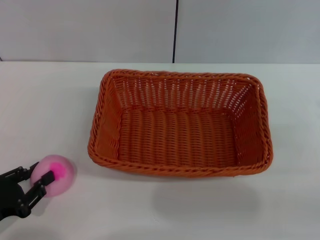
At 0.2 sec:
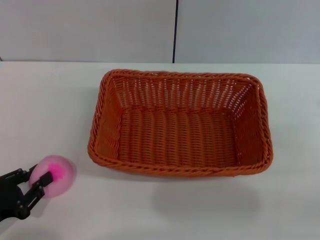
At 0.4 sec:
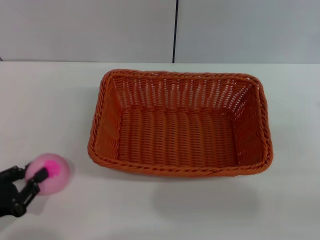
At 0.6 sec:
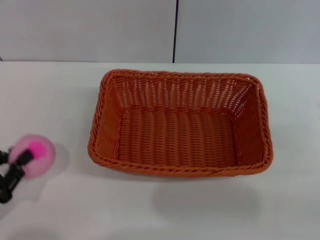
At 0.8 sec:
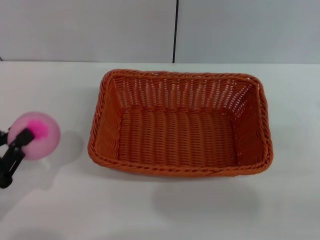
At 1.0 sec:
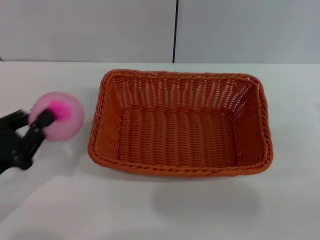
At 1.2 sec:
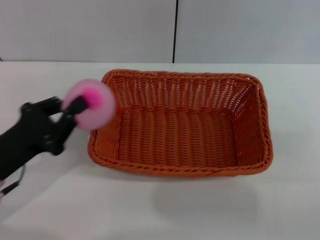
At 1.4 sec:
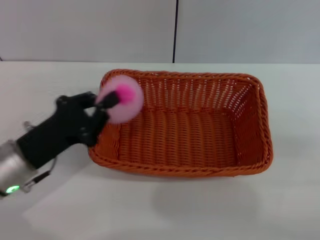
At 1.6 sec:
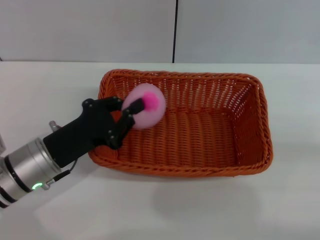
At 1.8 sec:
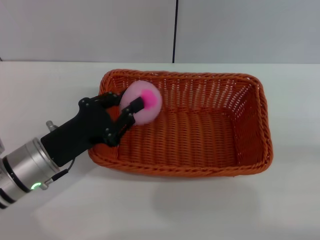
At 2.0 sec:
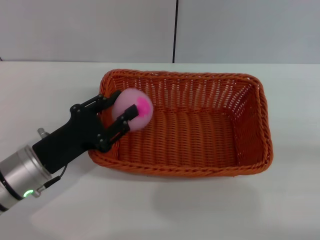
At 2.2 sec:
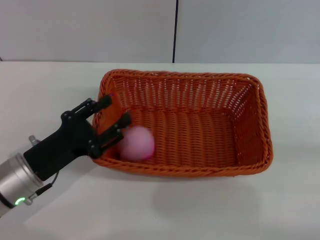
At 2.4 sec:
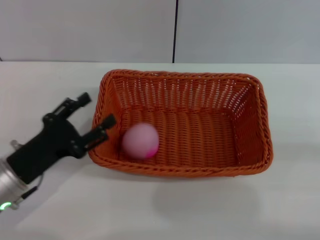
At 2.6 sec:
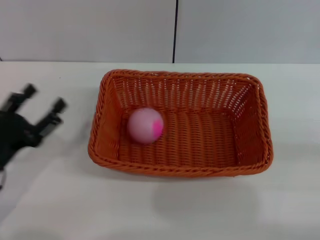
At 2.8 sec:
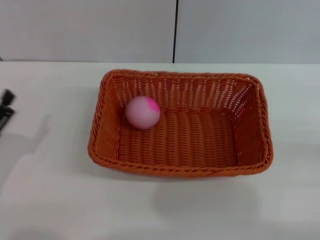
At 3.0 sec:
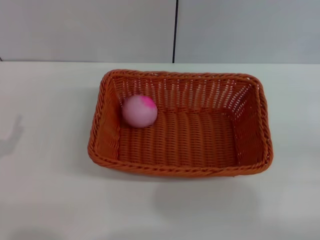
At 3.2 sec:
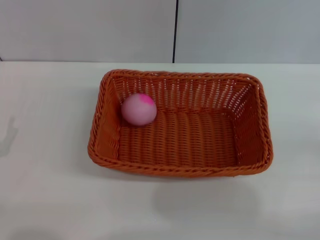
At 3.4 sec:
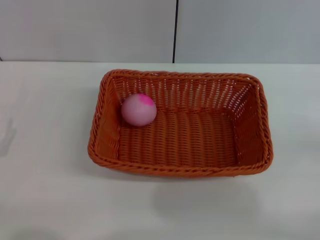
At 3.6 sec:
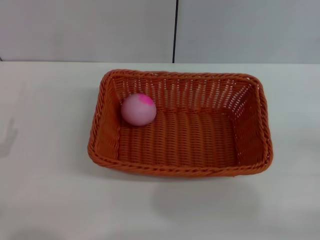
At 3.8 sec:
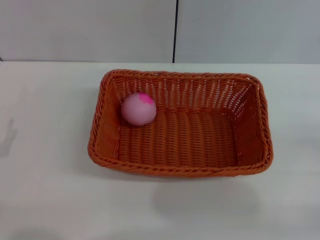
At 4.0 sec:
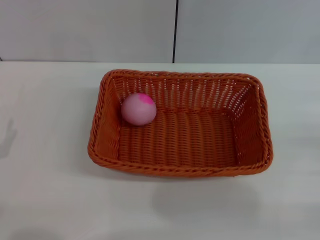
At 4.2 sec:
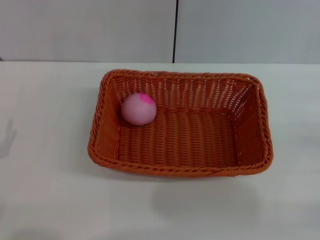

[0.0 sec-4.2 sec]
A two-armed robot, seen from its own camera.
Step, 1.0 sec to 2.6 sec: Place the peach into the basket with the left gripper.
0.0 sec to 1.4 sec: The left gripper shifts approximately 15 cm to the right and forward, and closes its fingers.
1.4 sec to 2.8 sec: The left gripper moves to the left and backward, approximately 10 cm, and opens up.
2.8 sec to 4.2 sec: The grippers make only small movements.
